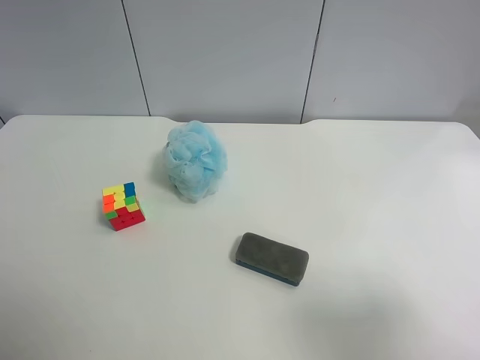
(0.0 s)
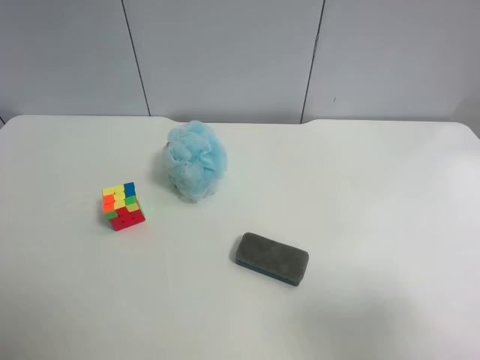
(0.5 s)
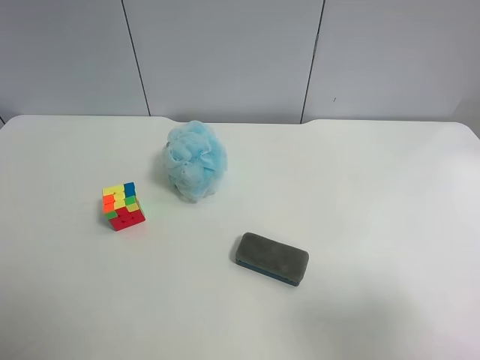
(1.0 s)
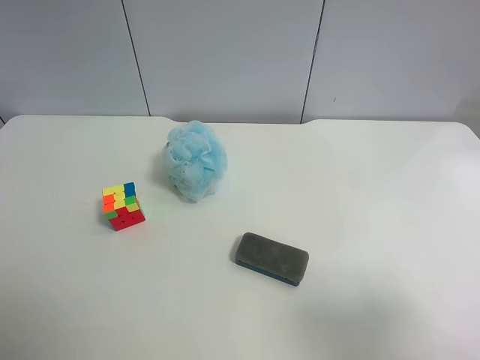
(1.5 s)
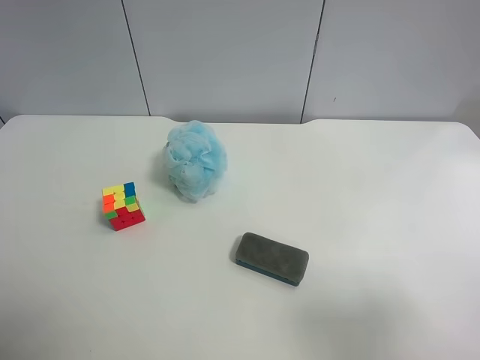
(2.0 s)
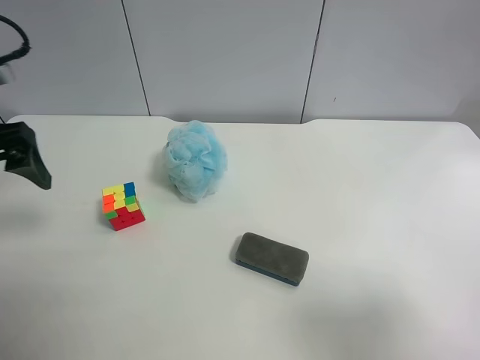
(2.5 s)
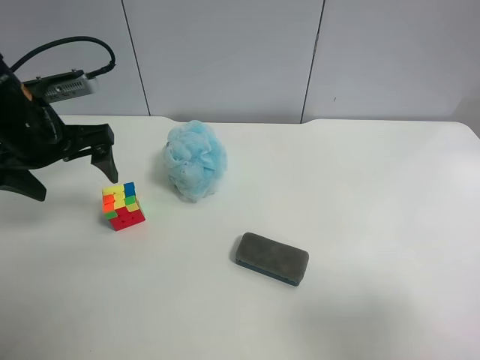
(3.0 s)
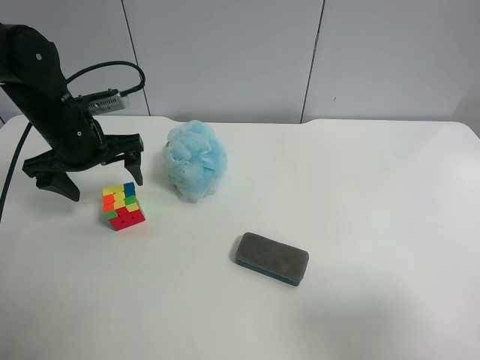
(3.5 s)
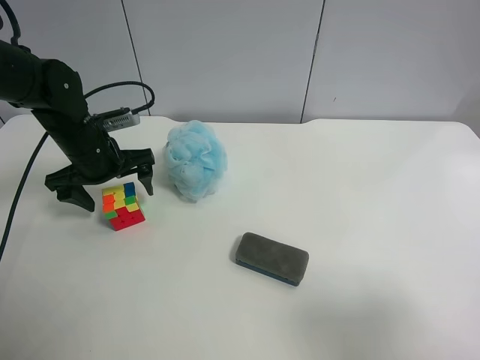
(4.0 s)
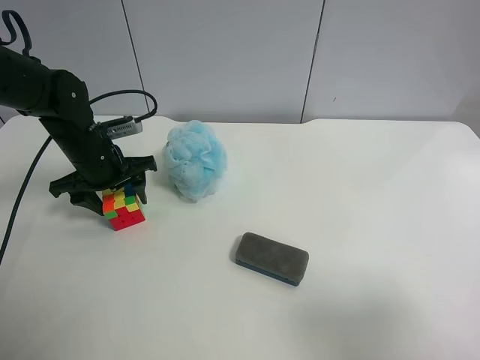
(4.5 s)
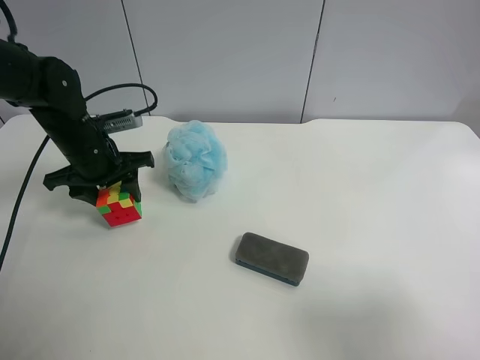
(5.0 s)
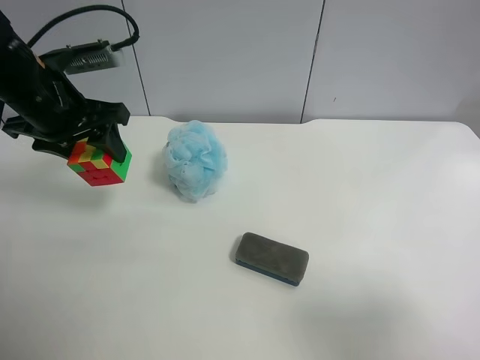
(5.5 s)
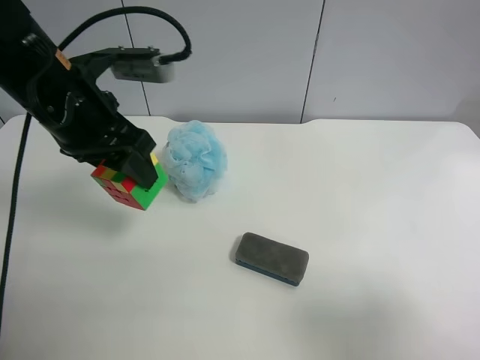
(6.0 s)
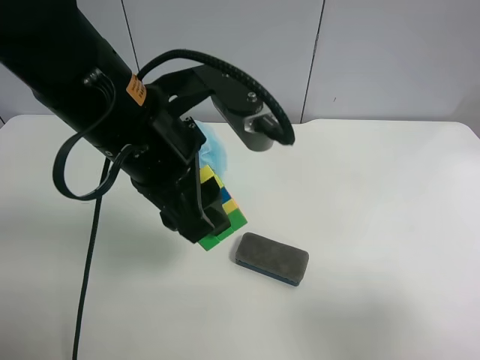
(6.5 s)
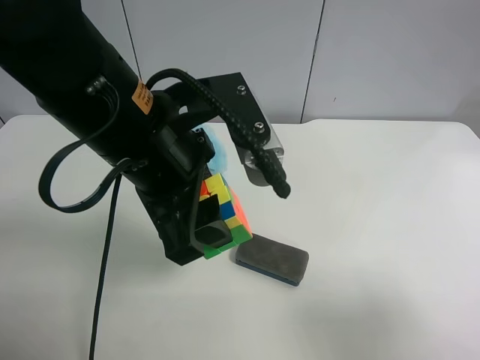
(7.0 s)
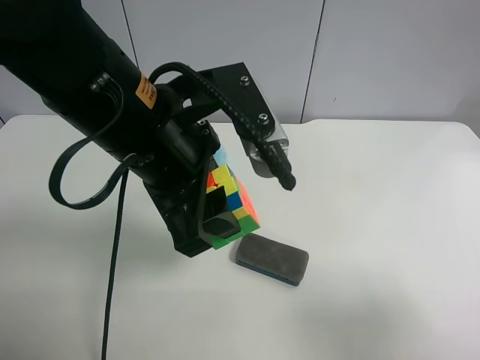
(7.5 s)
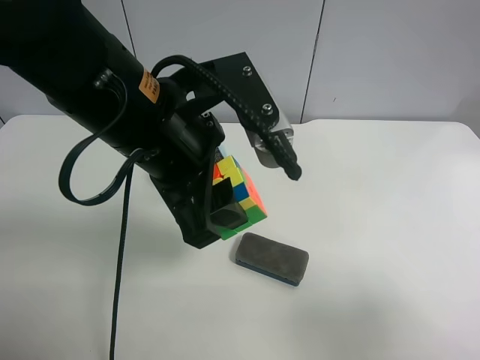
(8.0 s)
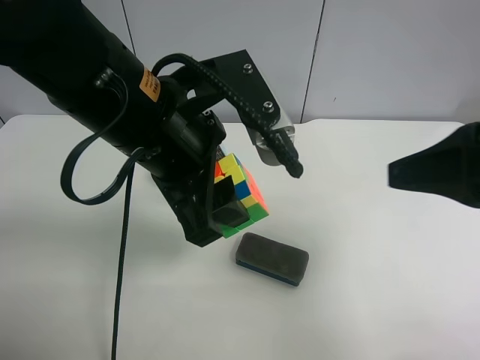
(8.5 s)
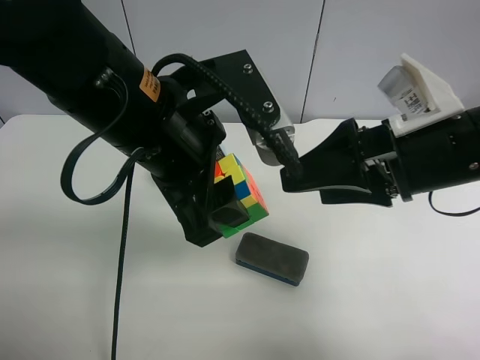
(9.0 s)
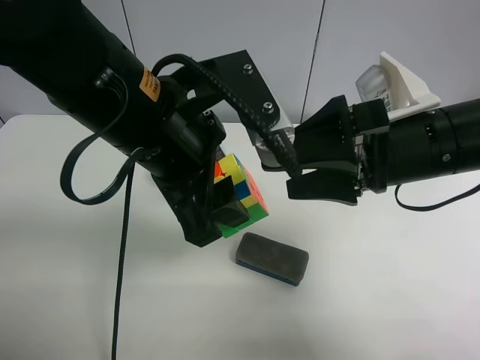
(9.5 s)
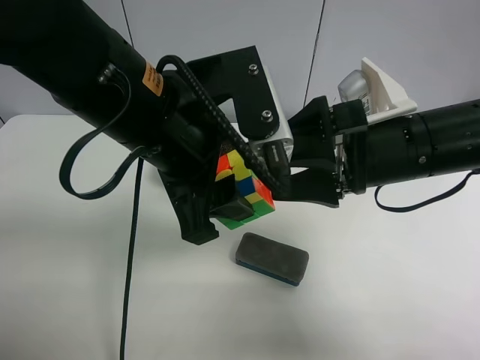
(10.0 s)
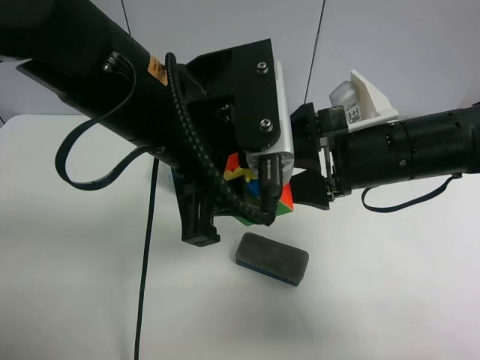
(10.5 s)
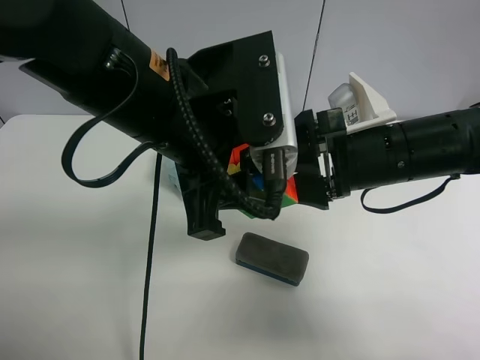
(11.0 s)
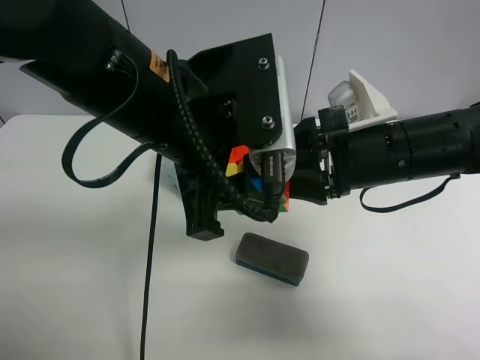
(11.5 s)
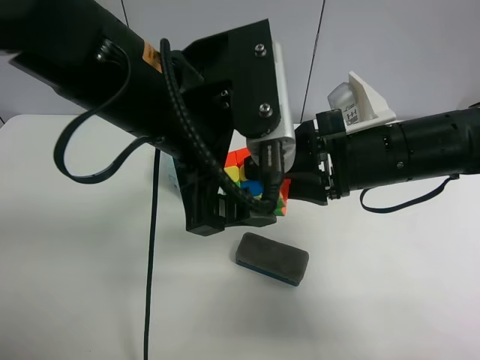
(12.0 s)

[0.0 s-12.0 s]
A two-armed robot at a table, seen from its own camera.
Task of the whole recording: use the left gripper to pick up the item and transfer it from the left gripper to the right gripper.
2.0 to 4.0 s: The left gripper travels forward, downward and to the right by approximately 30 cm.
4.0 to 6.0 s: The left gripper is displaced upward, backward and to the right by roughly 15 cm, and closes.
6.0 to 8.0 s: The left gripper heads to the right and backward, covering about 10 cm.
8.0 to 10.0 s: The right gripper travels forward and to the left by about 25 cm.
10.0 to 12.0 s: The right gripper closes up, while the left gripper opens up.

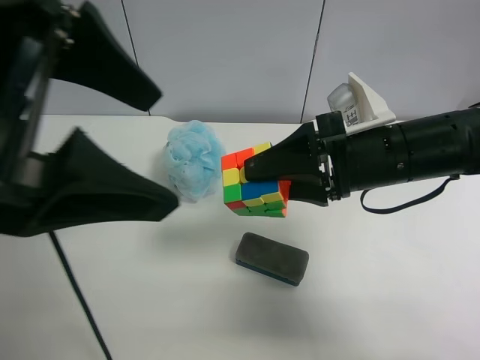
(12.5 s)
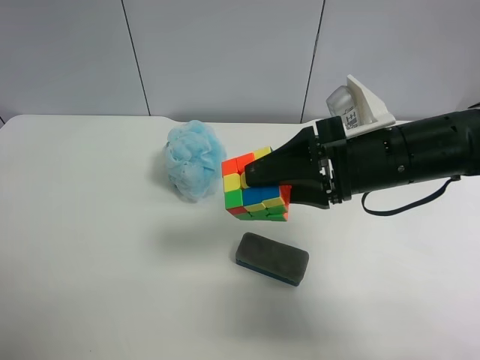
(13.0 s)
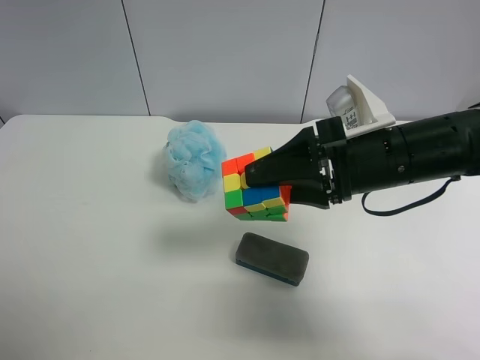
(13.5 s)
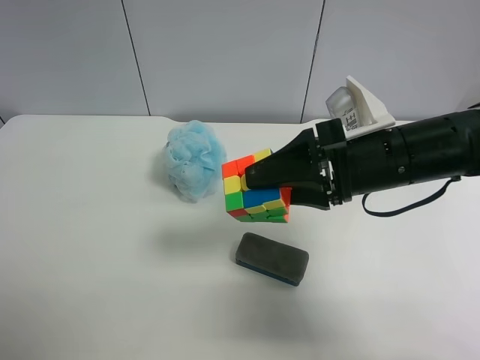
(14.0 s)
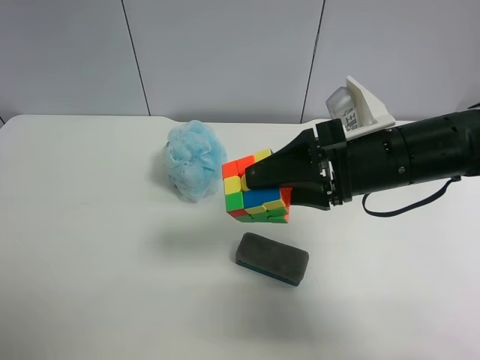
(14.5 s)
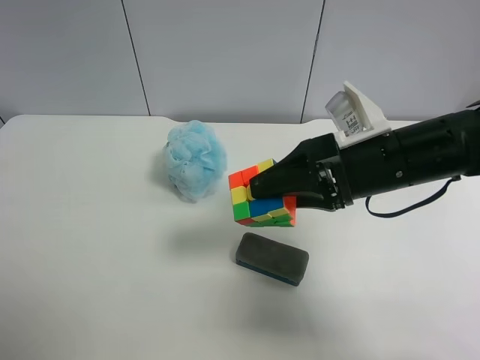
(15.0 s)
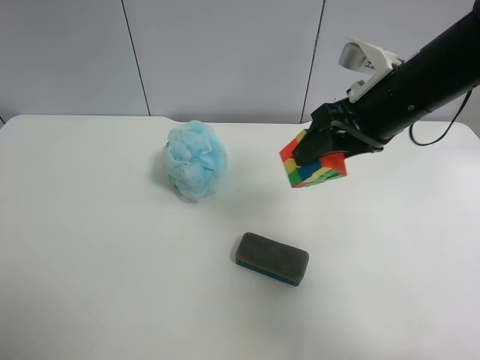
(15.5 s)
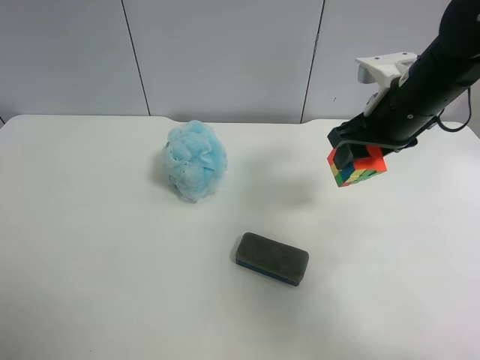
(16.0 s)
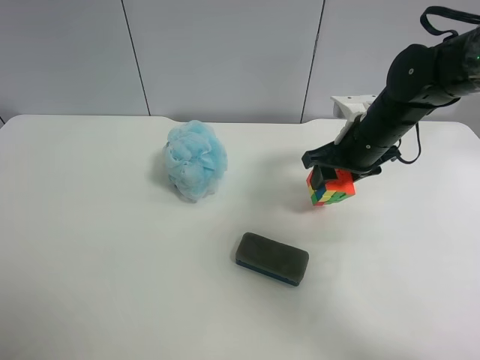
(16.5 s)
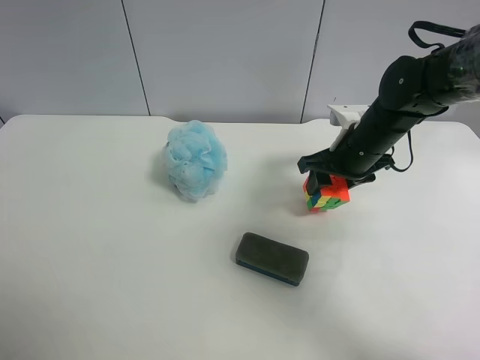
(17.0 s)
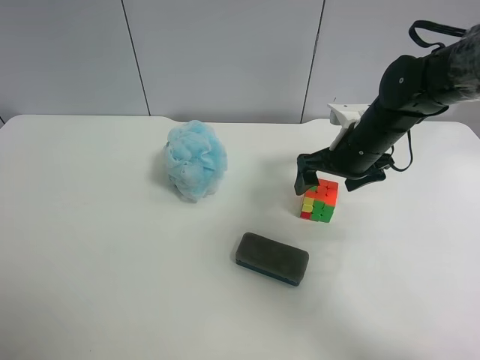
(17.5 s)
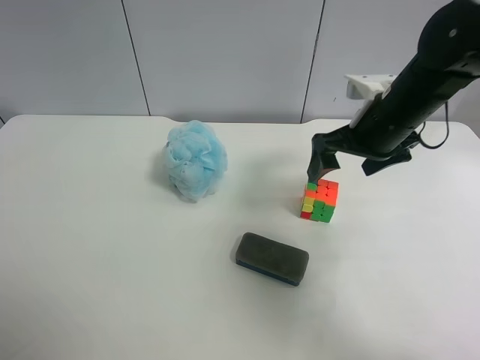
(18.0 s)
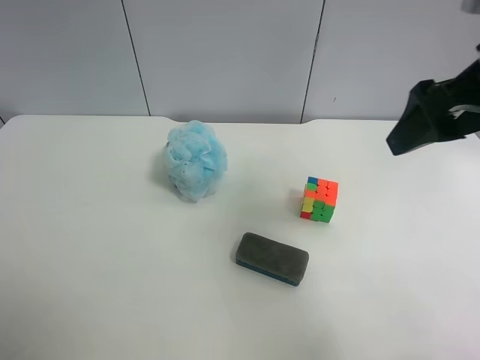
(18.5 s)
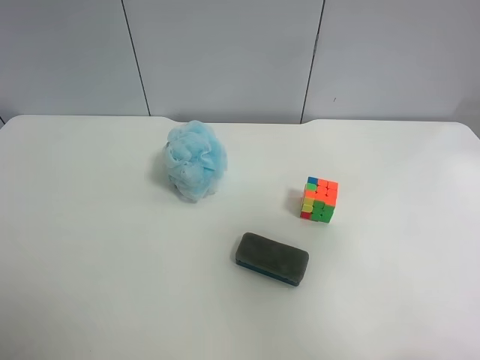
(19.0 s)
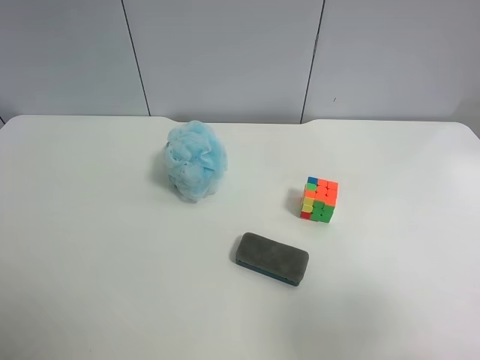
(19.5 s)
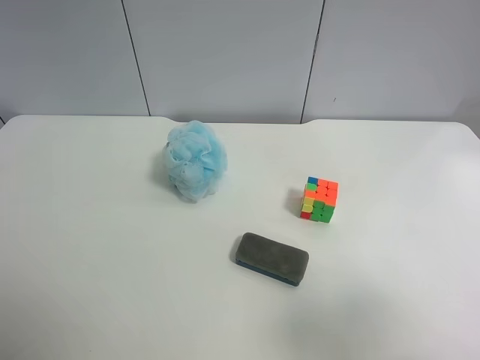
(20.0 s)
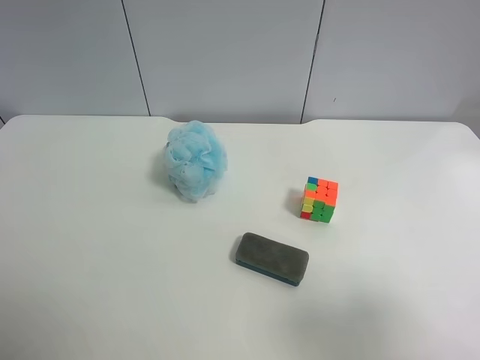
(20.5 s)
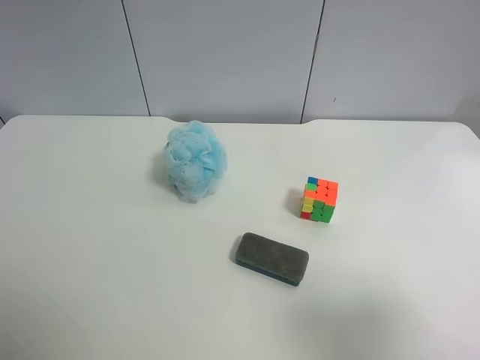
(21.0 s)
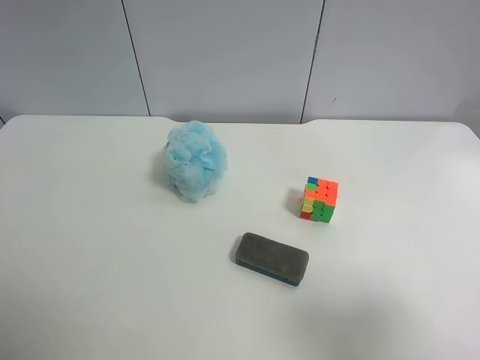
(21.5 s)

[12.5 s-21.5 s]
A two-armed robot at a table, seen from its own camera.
Task of the whole recording: use the left gripper to pick up the item and transfer it from the left gripper to the right gripper.
12.5 to 14.5 s: The left gripper goes some 25 cm to the left, backward and downward.
14.5 to 17.0 s: The right gripper shifts about 15 cm forward and downward.
17.0 to 19.5 s: The right gripper heads backward, covering some 35 cm, and opens up.
